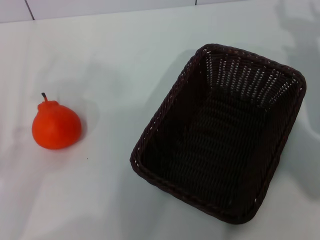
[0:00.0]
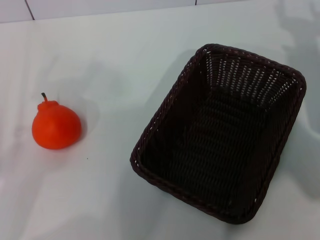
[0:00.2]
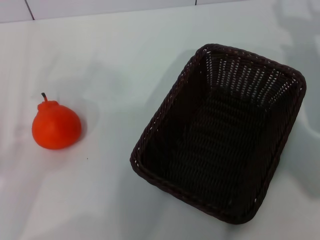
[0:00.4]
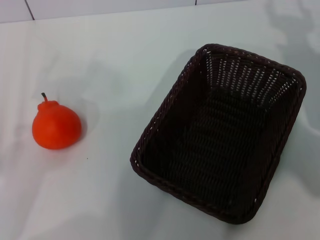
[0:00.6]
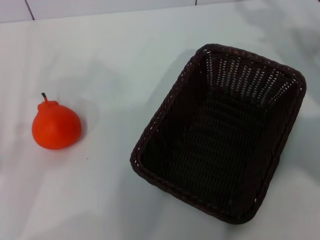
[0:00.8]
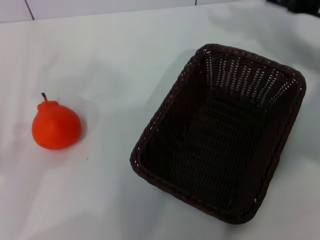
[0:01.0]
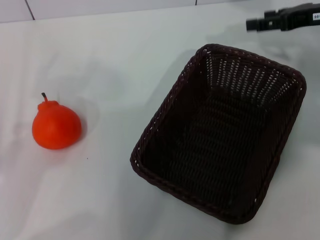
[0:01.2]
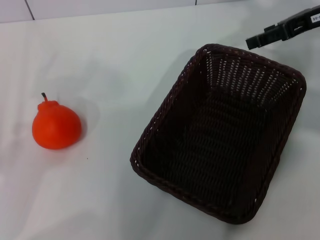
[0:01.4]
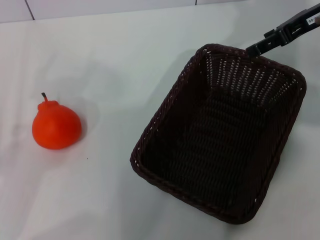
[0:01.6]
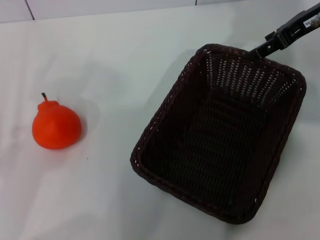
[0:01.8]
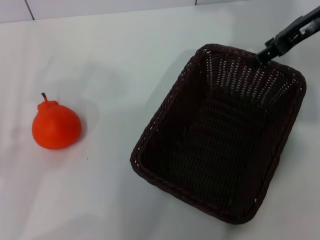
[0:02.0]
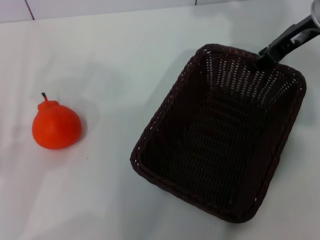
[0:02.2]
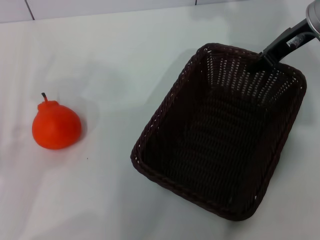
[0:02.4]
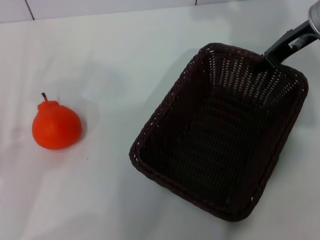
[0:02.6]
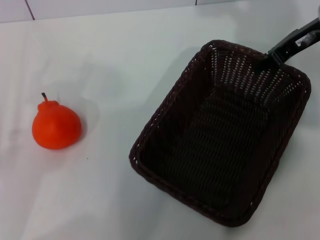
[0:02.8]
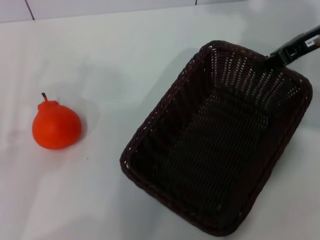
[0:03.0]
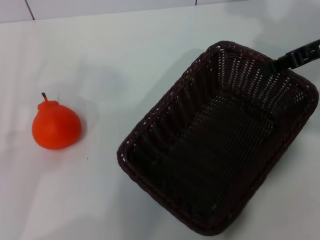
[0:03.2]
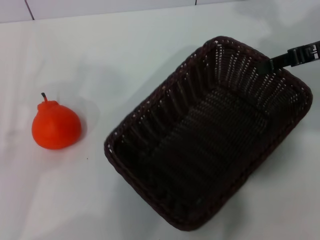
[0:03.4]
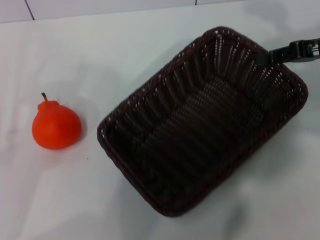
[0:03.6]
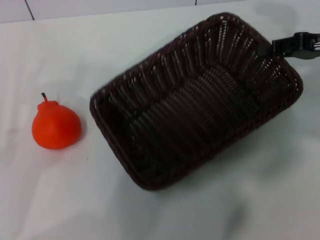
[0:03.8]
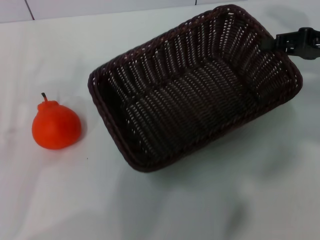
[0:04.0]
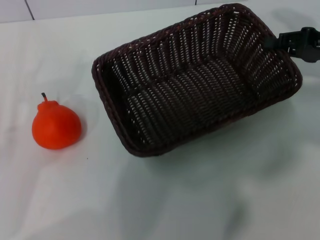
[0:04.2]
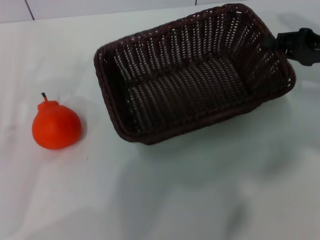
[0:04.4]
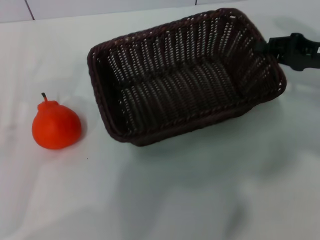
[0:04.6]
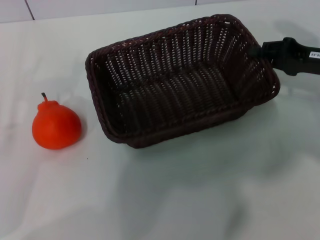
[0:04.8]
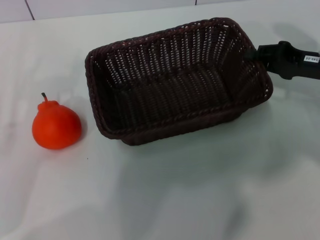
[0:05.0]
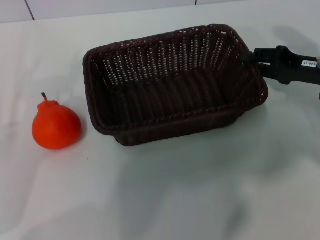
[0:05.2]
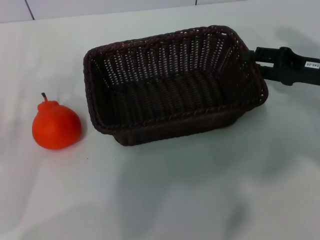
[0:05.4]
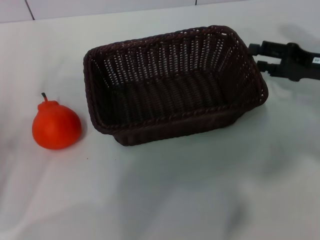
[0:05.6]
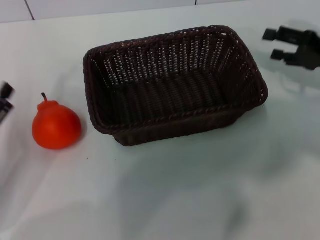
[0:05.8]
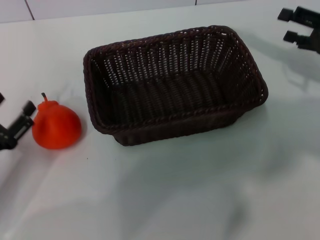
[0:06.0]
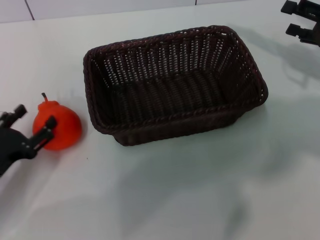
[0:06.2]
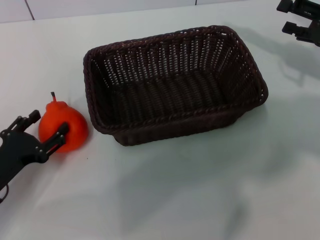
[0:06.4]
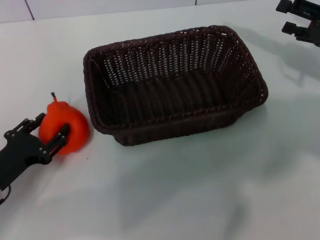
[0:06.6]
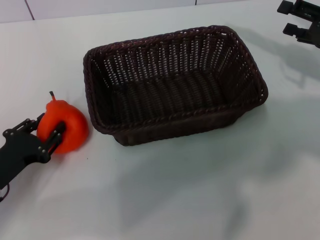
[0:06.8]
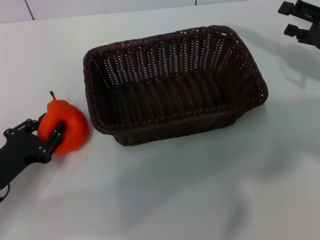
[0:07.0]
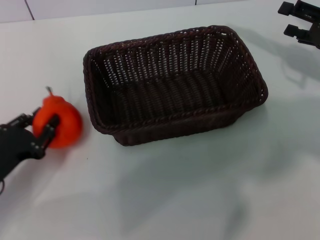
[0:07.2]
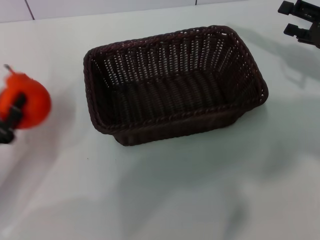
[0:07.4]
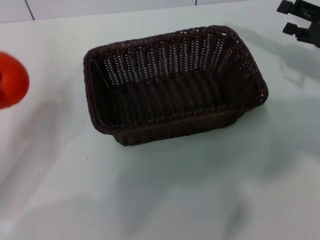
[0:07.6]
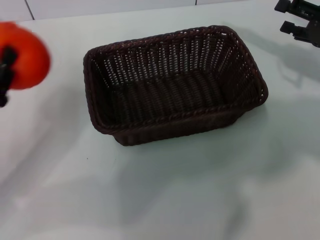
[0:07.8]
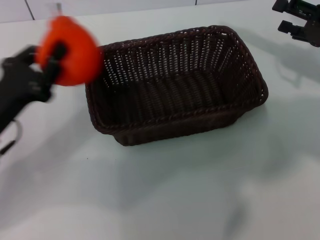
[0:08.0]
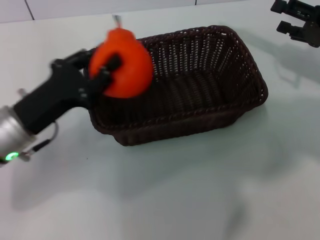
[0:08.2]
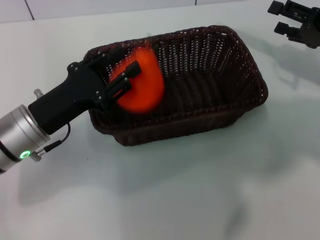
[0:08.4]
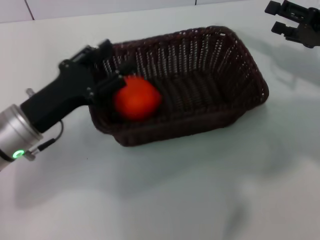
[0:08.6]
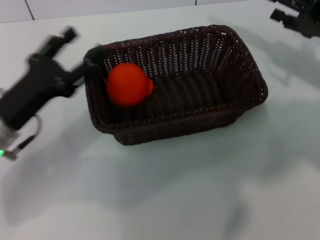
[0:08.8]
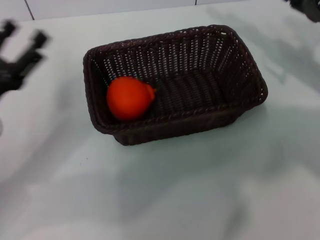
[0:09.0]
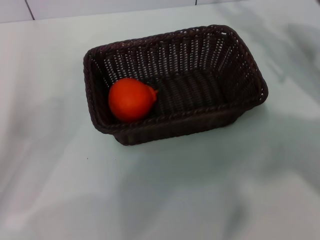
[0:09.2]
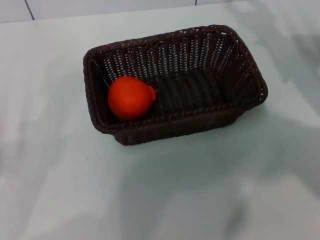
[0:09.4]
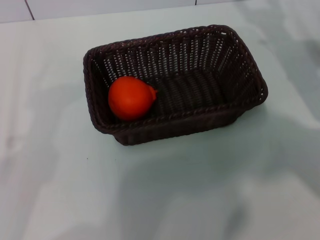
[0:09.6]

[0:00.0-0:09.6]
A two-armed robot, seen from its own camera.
Task of the whole recording: the right gripper pick up the black basket and place it horizontally in the middle of the table, the left gripper pick up the orange and place it into the black basket.
Step, 0:00.0 to 0:02.8: Pick up the dark basket with the right gripper.
Step, 0:03.0 to 0:05.2: Place the dark basket in the center of view with the right gripper.
Step, 0:05.4 to 0:07.0: Pick up the orange with the left gripper.
Step, 0:07.4 to 0:08.4: Place the orange into the dark basket with the left gripper.
0:00.0 to 0:01.6: The right gripper shifts roughly 15 cm upward and forward.
0:01.6 to 0:03.2: The right gripper ends up approximately 5 cm from where it was, and closes up.
0:03.2 to 0:04.8: The right gripper travels downward by some 10 cm.
0:04.8 to 0:06.4: The left gripper moves approximately 5 cm. The right gripper opens up.
0:06.4 to 0:08.0: The left gripper travels upward by roughly 5 cm, and closes its fingers.
0:08.0 to 0:09.6: The left gripper shifts roughly 10 cm backward and to the left, and opens its fingers.

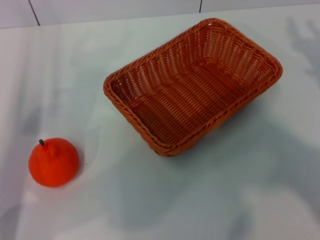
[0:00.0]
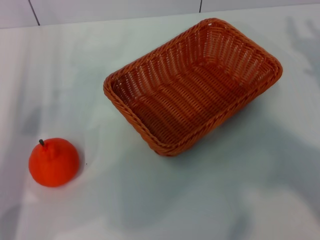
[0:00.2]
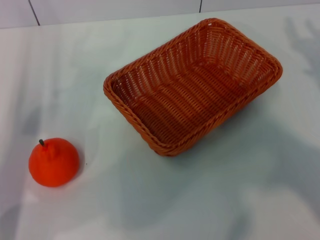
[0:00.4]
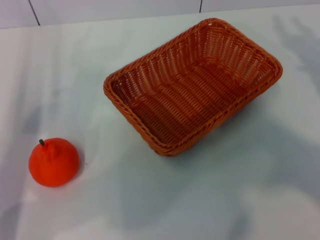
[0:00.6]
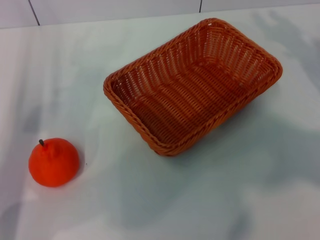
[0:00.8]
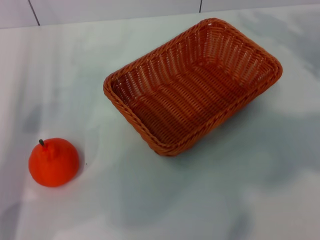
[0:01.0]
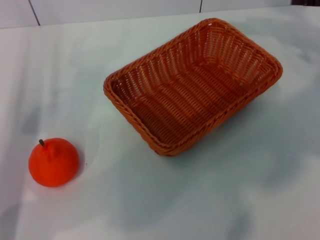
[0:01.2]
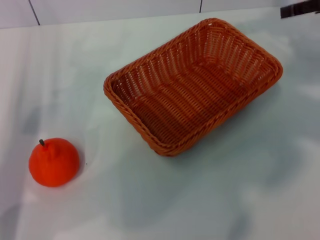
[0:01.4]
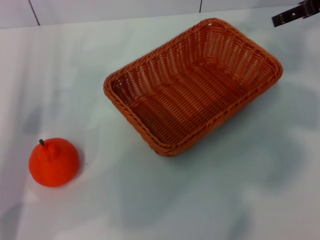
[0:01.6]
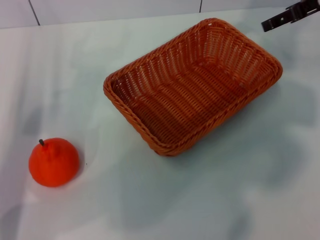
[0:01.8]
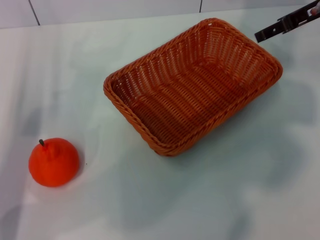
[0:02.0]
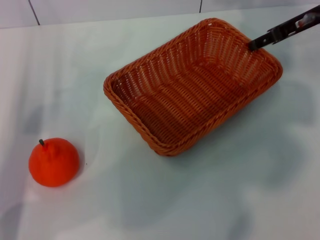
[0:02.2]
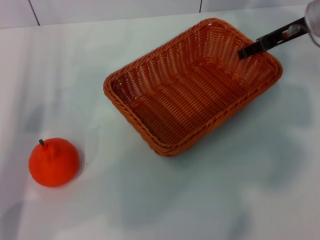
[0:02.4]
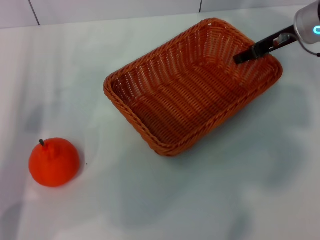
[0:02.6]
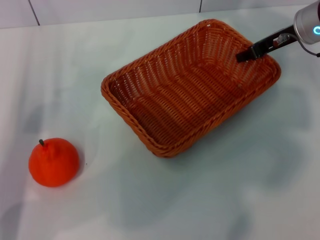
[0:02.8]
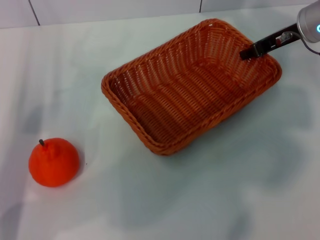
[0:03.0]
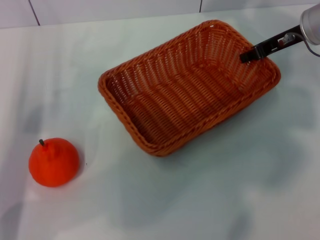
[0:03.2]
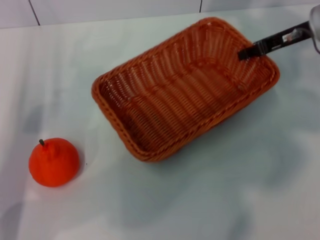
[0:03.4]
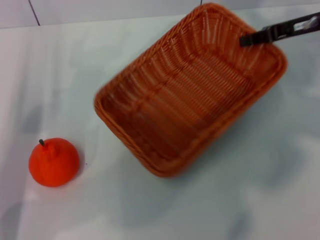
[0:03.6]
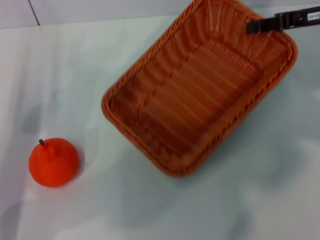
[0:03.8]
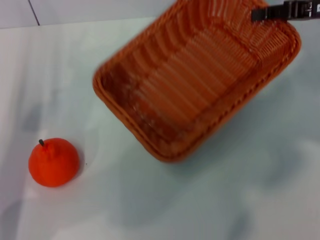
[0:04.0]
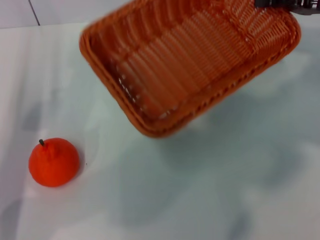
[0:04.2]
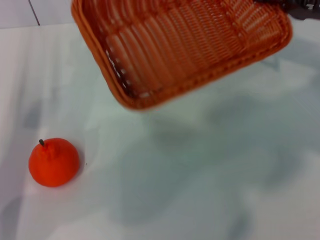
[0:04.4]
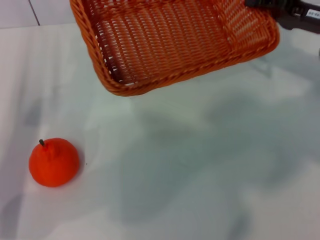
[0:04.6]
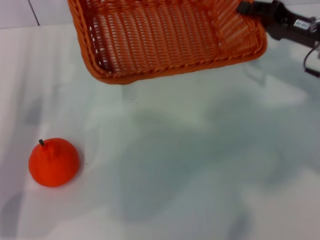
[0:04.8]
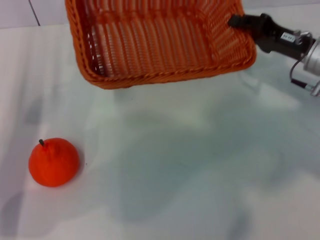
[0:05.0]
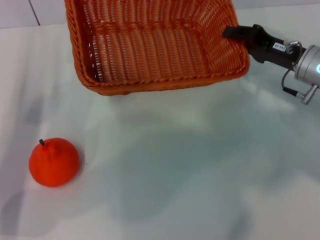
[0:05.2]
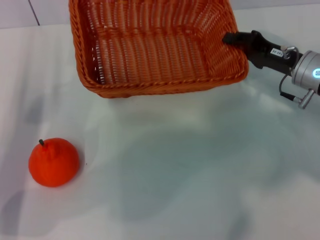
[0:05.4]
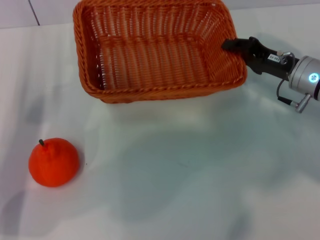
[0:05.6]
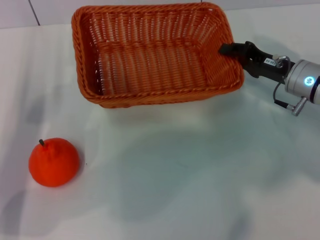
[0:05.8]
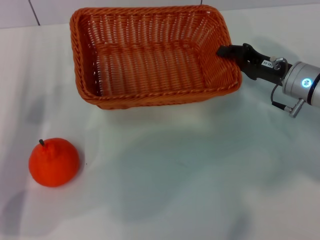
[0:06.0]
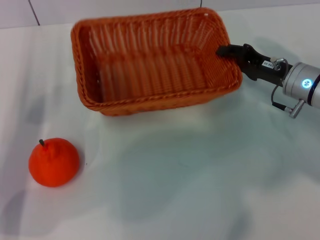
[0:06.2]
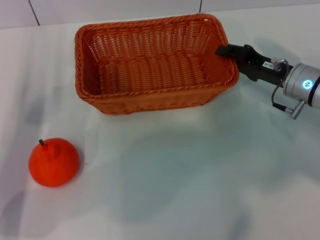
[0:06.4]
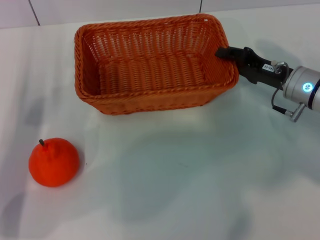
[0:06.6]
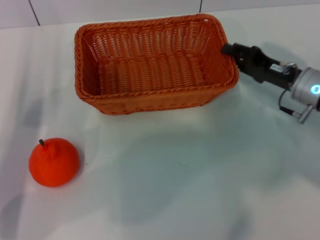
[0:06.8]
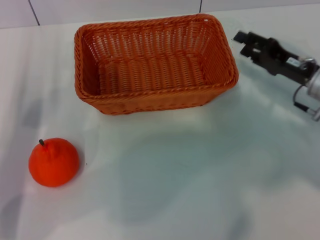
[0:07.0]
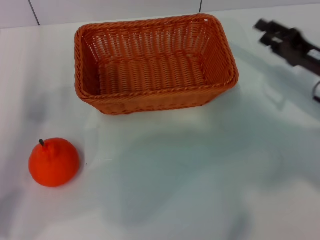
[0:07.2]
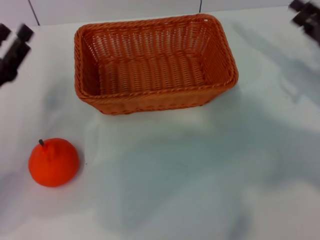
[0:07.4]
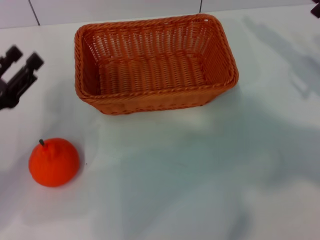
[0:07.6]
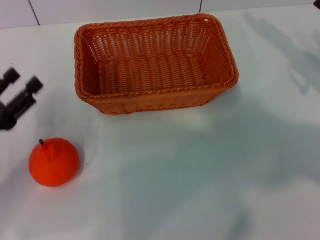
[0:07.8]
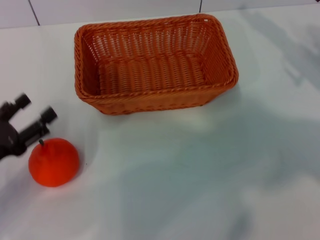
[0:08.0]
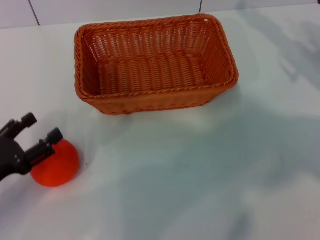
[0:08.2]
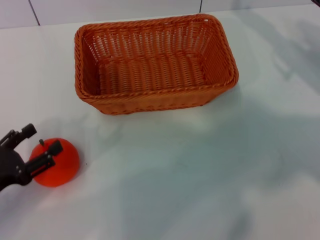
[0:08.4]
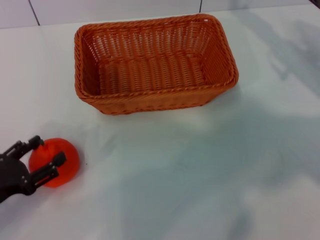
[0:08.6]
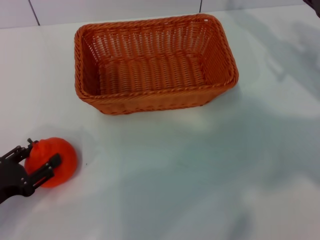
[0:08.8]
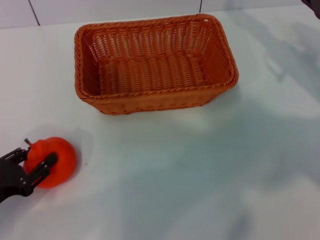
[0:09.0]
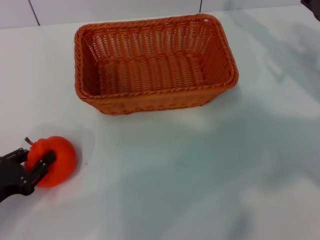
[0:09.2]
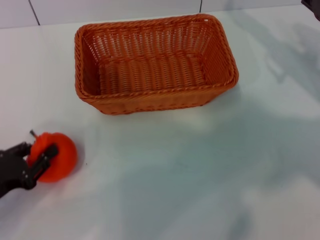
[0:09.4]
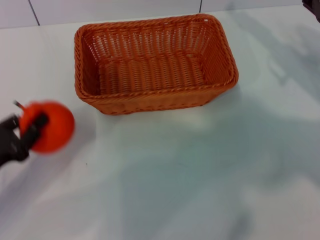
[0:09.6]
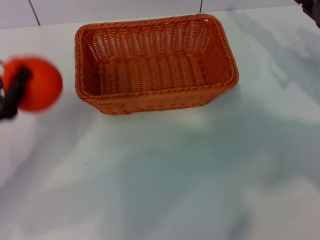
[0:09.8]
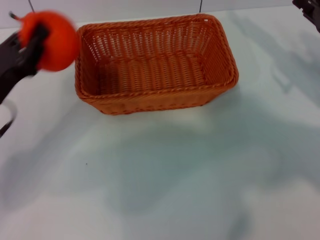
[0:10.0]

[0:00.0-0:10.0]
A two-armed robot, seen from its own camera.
Task of the whole recording: the right gripper pick up the yellow basket and place it horizontally in the middle of the table, the left gripper pick up the orange and place it into the yellow basket.
Step, 0:00.0 to 0:03.8: Pick up the light basket with the right gripper.
Step, 0:04.2 to 0:07.0: Place the light basket in the center of view with the right gripper.
Step, 0:07.2 to 0:09.6: Pick up the orange with the left gripper.
0:00.0 to 0:01.4: The right gripper moves upward and forward, about 20 cm.
0:01.4 to 0:02.8: The right gripper heads to the left and downward, covering some 10 cm.
0:02.8 to 0:04.2: The right gripper heads to the right, covering roughly 5 cm, and closes up.
0:04.2 to 0:05.8: The right gripper goes some 15 cm downward and to the left.
0:05.8 to 0:07.2: The right gripper shifts some 5 cm to the right, and opens.
0:07.2 to 0:08.6: The right gripper ends up some 5 cm from where it was; the left gripper travels backward by about 10 cm.
0:08.6 to 0:10.0: The left gripper goes approximately 10 cm forward and upward, and closes.

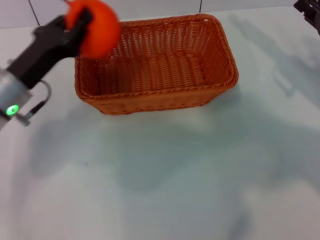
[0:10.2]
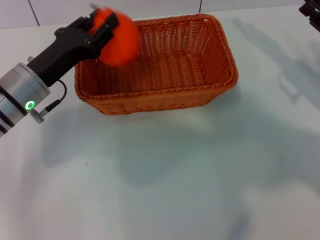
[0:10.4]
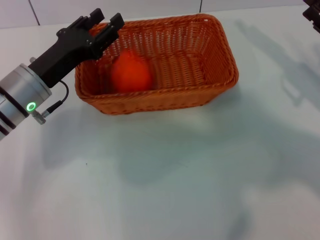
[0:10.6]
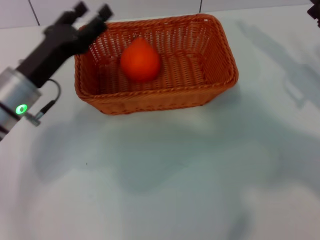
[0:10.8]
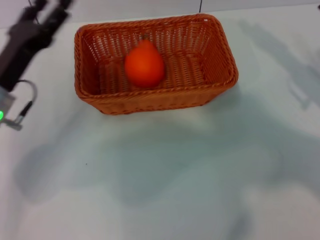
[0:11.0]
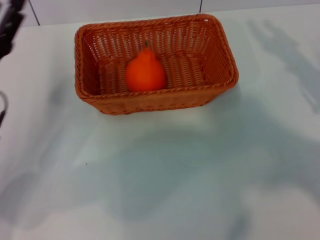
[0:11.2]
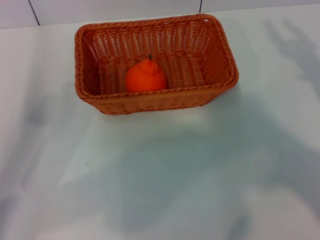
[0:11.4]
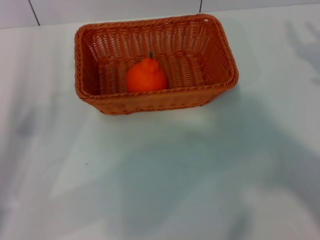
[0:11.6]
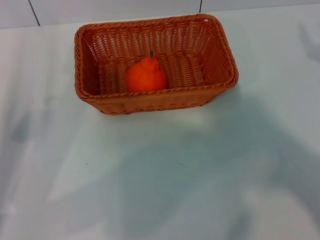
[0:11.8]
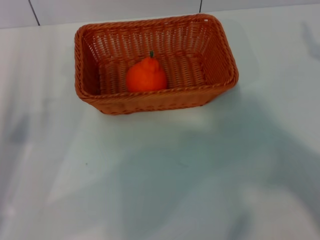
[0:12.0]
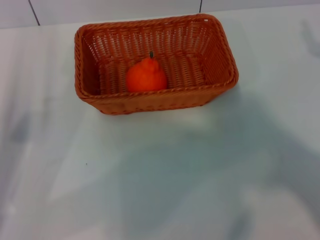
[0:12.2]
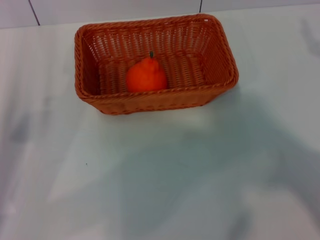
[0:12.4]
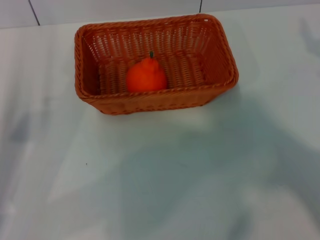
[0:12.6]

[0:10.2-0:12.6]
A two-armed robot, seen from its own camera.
Task of the whole recording: the right gripper pick up the yellow basket and place it horizontally in the middle of the table, the left gripper pick up the orange and place it into the yellow basket.
Step, 0:10.2 to 0:10.8: Place the orange into the light basket with the left gripper.
0:10.2 to 0:11.4: The left gripper travels backward and to the left by roughly 10 cm, and opens up. The right gripper travels backward by some 10 cm.
0:11.4 to 0:12.6: The grippers stay close to where they were, moving slightly.
